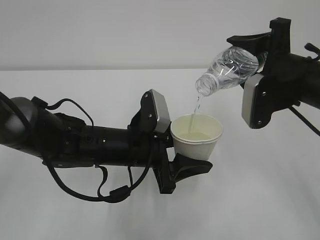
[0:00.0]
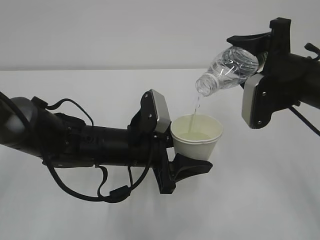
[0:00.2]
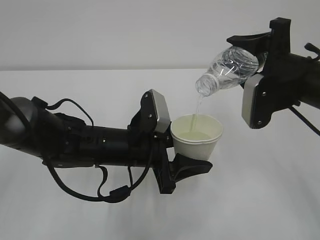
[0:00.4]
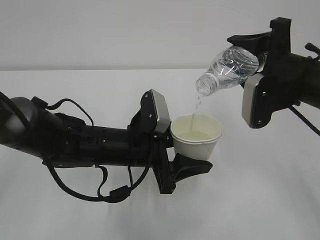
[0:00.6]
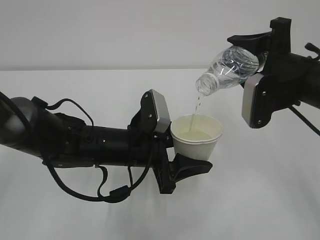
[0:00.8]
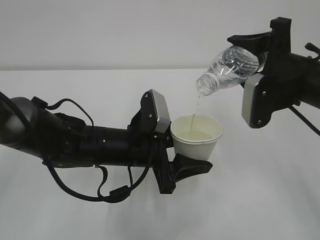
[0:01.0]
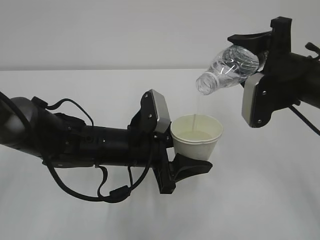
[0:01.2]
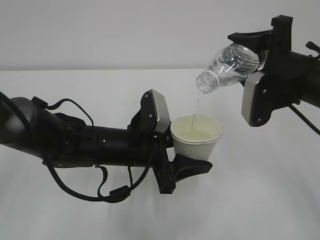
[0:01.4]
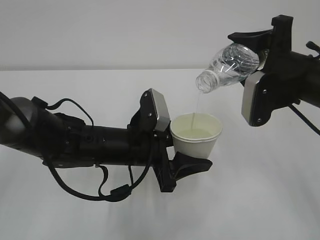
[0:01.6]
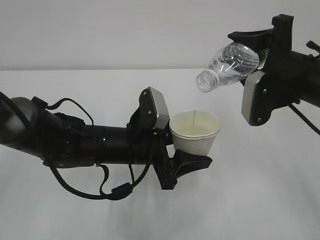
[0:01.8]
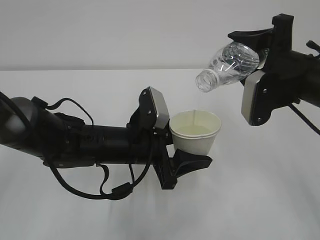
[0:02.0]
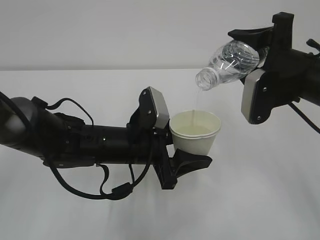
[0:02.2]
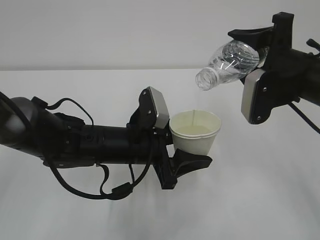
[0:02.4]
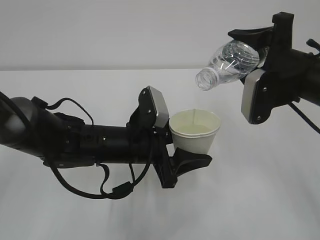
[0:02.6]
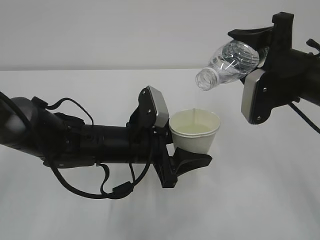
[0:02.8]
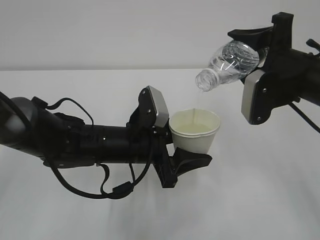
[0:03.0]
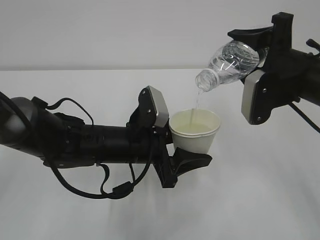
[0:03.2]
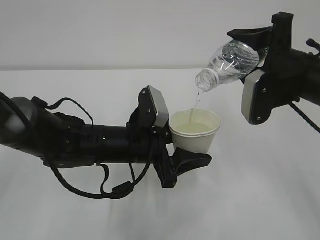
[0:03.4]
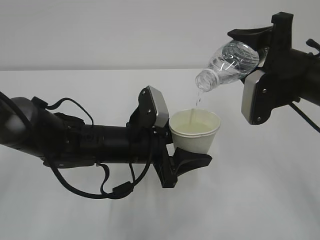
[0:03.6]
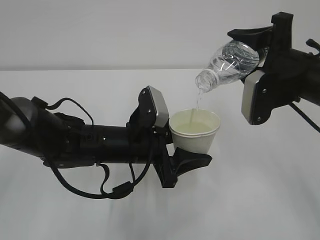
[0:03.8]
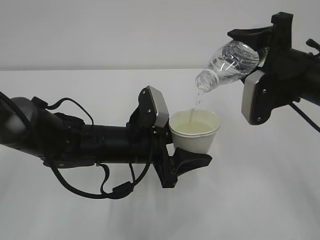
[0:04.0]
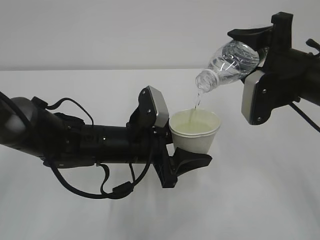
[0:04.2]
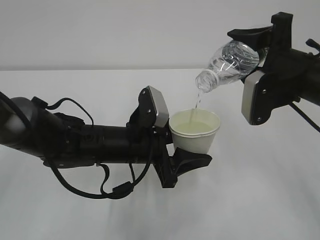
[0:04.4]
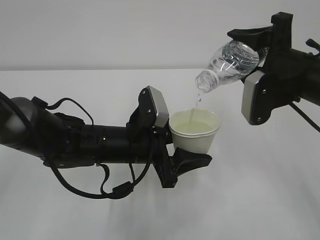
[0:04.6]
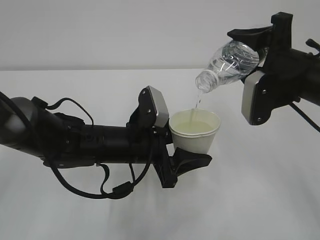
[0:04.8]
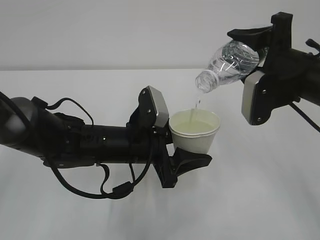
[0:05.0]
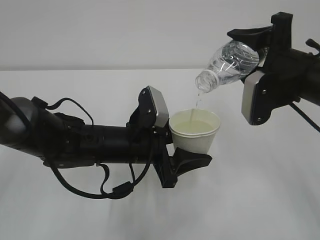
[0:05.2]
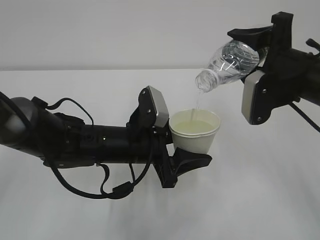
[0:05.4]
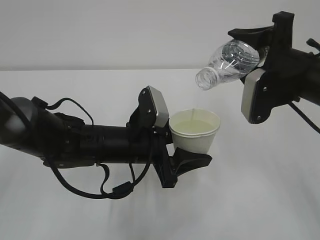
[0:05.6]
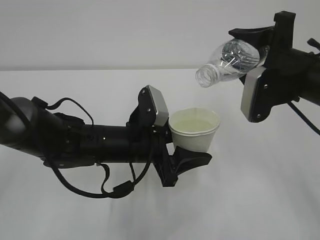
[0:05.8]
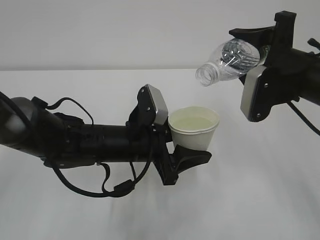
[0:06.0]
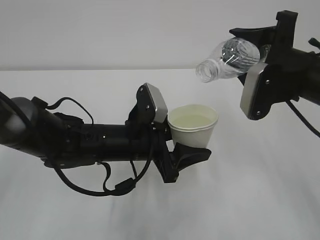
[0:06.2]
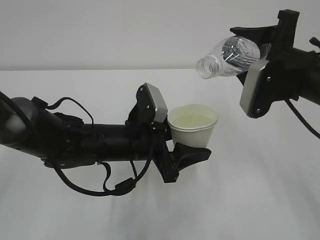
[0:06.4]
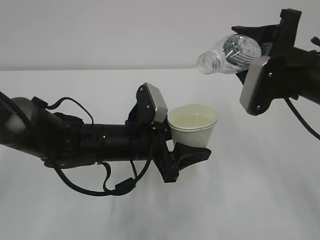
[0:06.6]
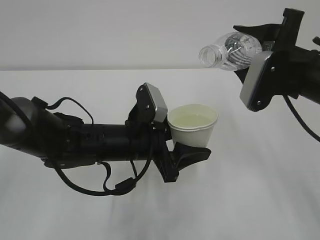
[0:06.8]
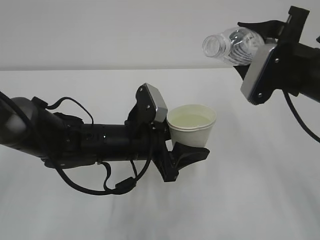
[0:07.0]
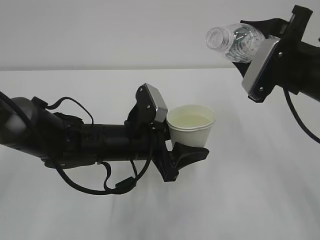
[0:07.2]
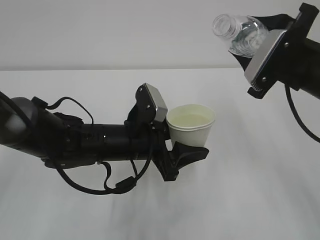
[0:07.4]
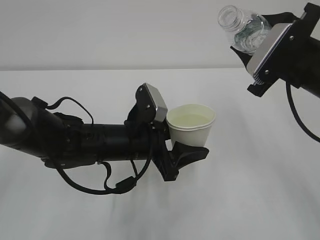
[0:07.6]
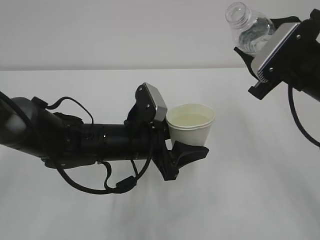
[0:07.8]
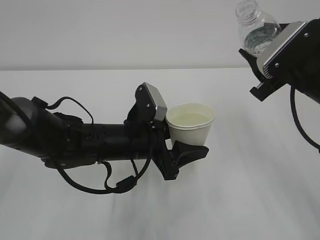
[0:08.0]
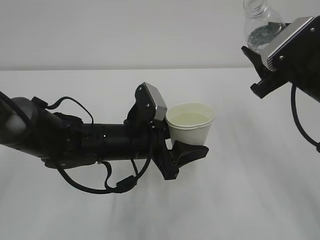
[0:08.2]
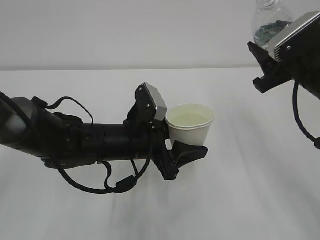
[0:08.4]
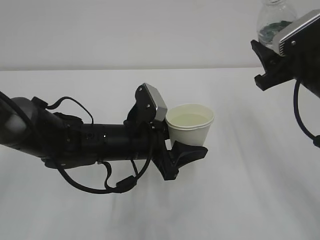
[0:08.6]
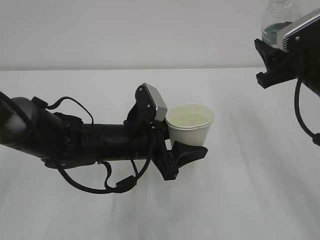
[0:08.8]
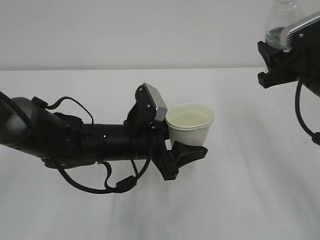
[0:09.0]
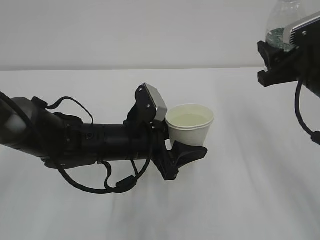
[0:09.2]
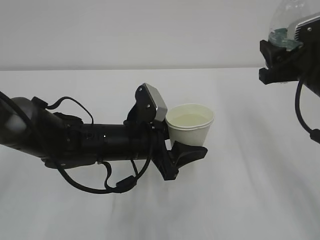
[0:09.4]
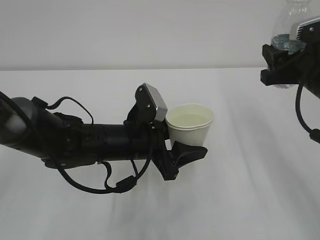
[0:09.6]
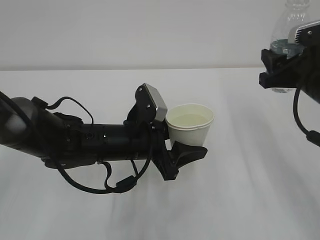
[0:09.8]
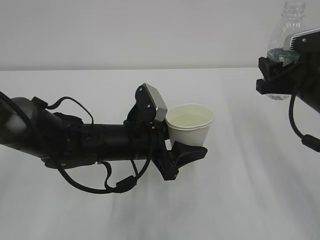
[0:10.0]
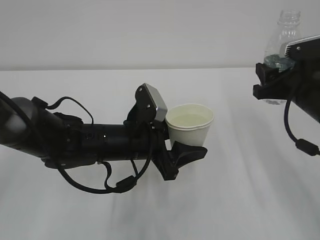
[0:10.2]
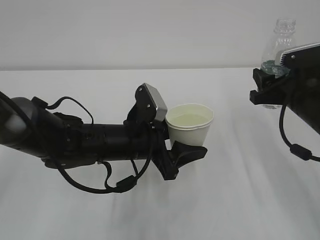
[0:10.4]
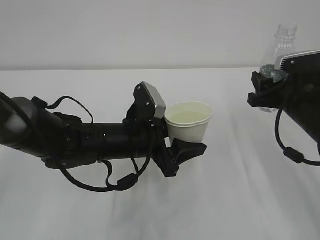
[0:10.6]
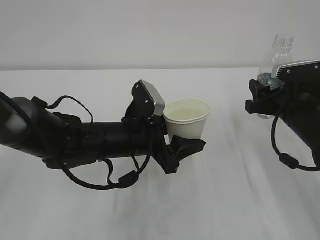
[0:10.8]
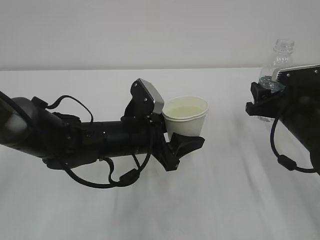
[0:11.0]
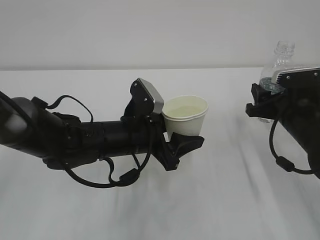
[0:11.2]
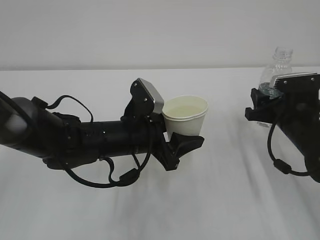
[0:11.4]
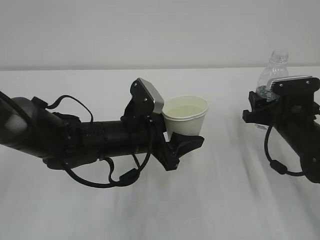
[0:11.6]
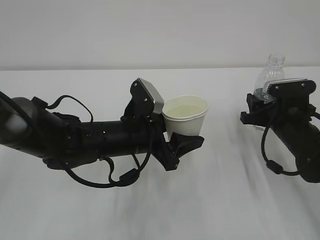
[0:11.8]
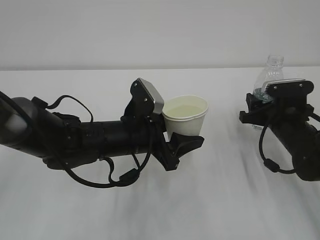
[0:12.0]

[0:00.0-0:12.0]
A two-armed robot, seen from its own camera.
0:00.0 to 0:04.4: The two grippers keep their place.
0:04.4 to 0:06.0: The grippers stay close to where they were, moving slightly.
0:09.0 to 0:10.4: The right gripper moves downward, roughly 5 cm.
0:10.4 to 0:12.0: The right gripper is displaced downward by approximately 10 cm.

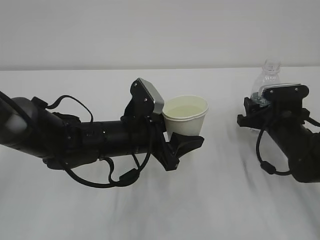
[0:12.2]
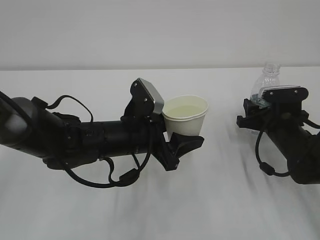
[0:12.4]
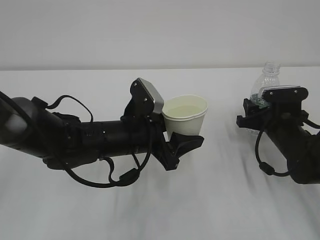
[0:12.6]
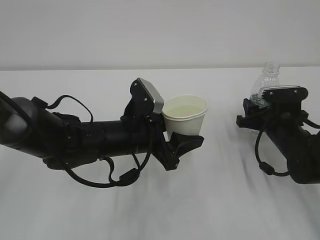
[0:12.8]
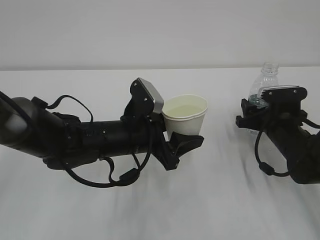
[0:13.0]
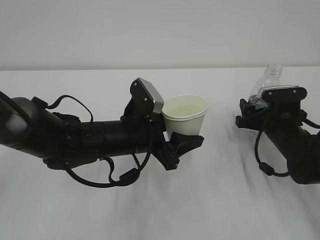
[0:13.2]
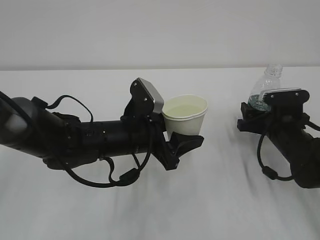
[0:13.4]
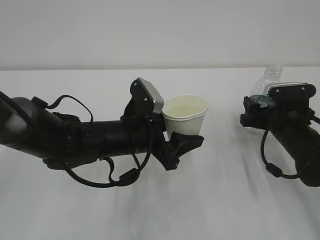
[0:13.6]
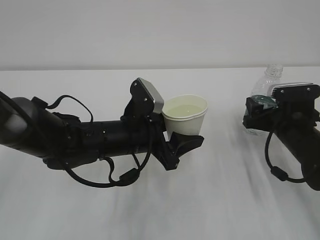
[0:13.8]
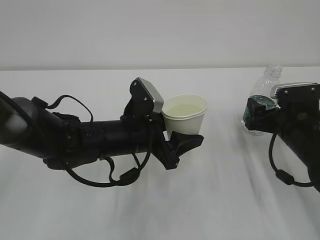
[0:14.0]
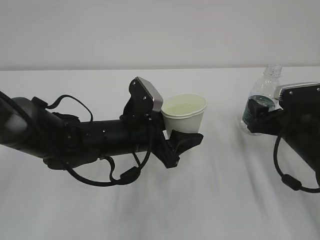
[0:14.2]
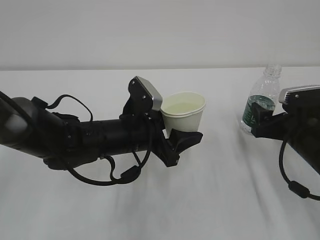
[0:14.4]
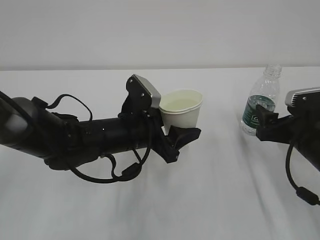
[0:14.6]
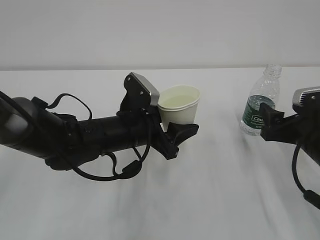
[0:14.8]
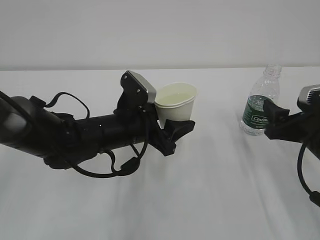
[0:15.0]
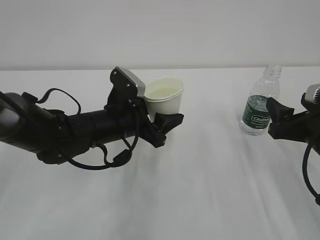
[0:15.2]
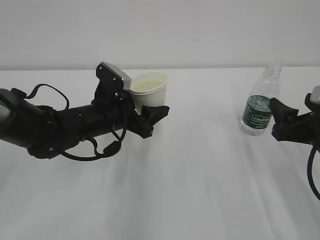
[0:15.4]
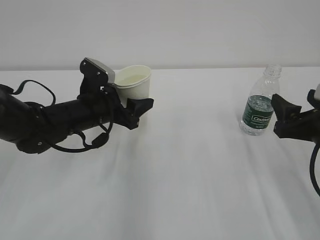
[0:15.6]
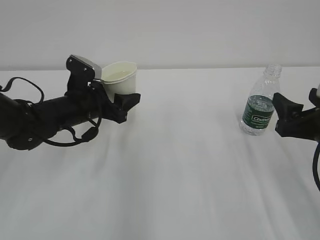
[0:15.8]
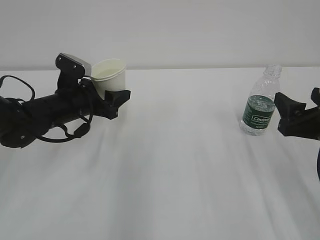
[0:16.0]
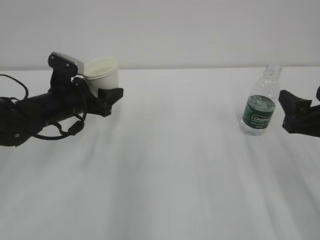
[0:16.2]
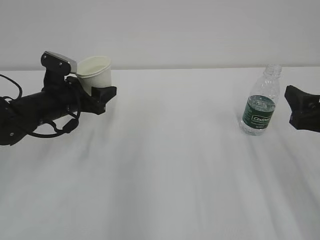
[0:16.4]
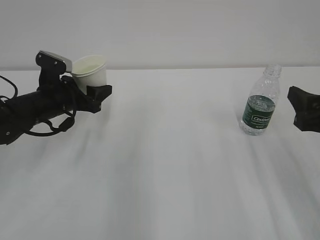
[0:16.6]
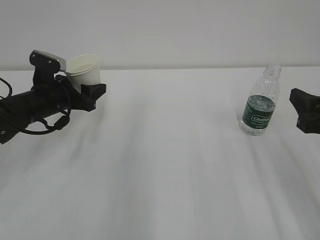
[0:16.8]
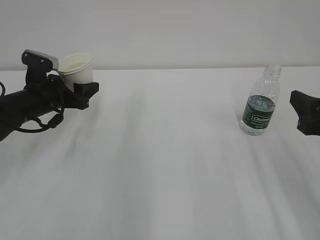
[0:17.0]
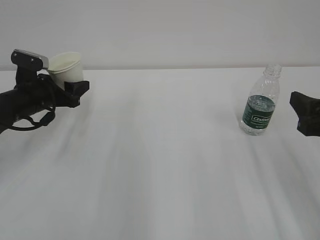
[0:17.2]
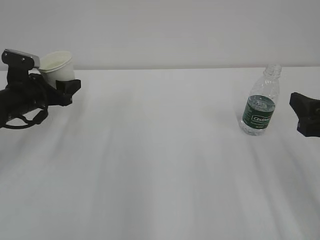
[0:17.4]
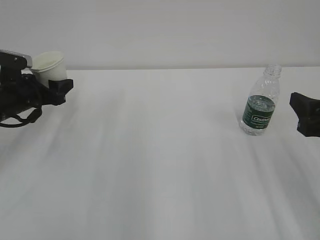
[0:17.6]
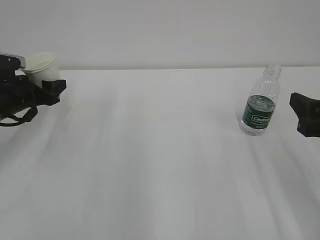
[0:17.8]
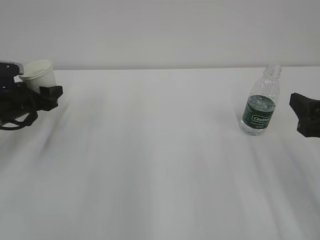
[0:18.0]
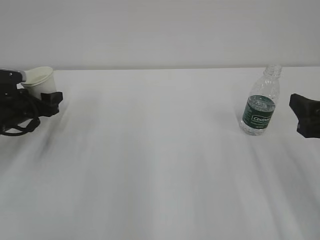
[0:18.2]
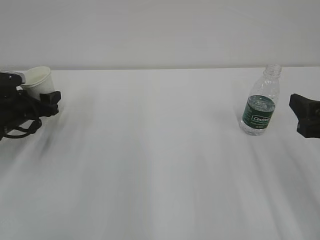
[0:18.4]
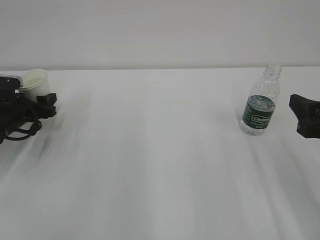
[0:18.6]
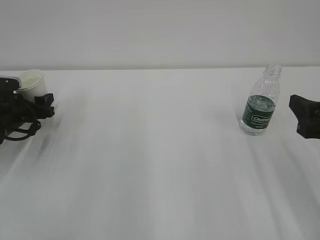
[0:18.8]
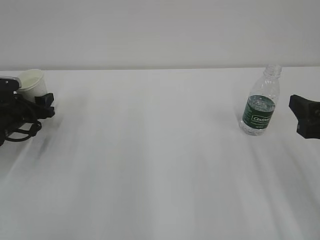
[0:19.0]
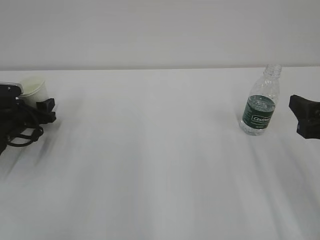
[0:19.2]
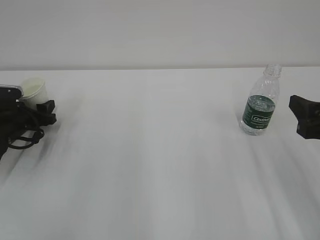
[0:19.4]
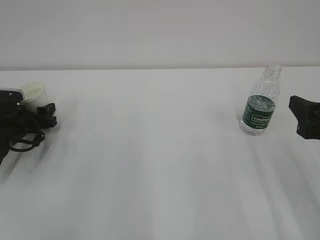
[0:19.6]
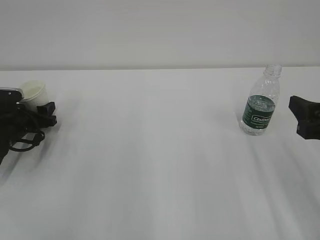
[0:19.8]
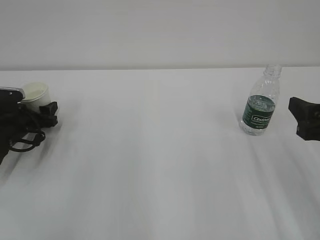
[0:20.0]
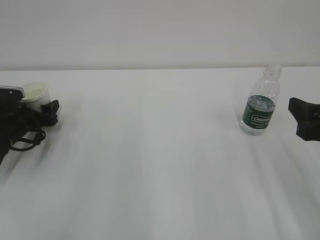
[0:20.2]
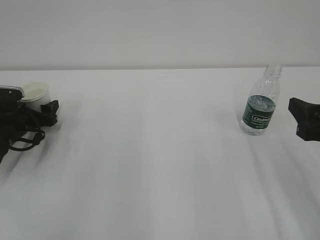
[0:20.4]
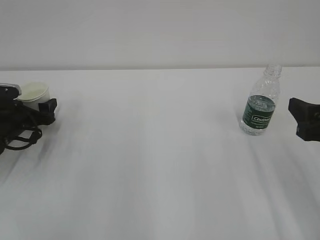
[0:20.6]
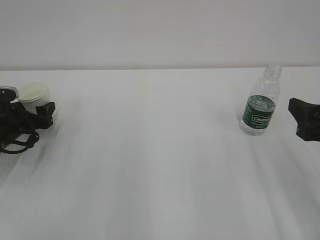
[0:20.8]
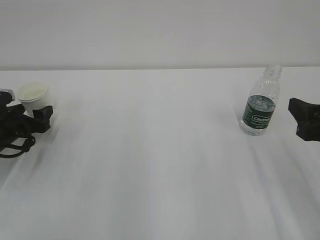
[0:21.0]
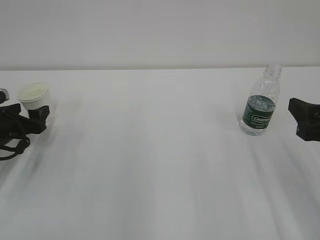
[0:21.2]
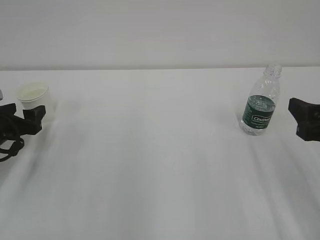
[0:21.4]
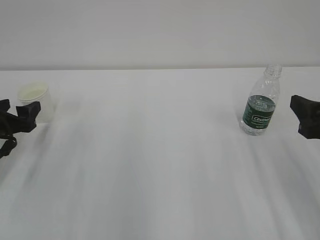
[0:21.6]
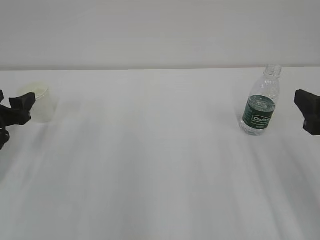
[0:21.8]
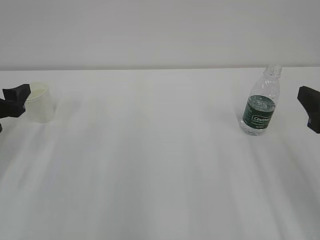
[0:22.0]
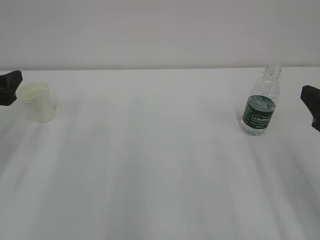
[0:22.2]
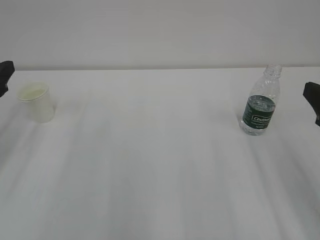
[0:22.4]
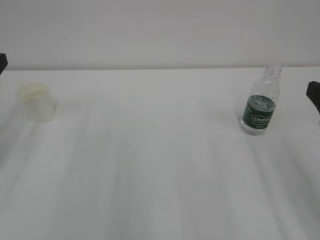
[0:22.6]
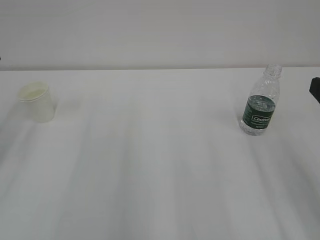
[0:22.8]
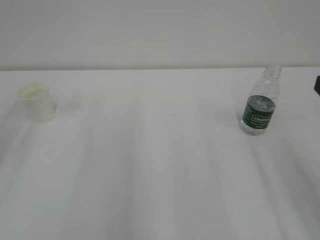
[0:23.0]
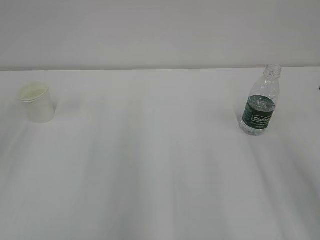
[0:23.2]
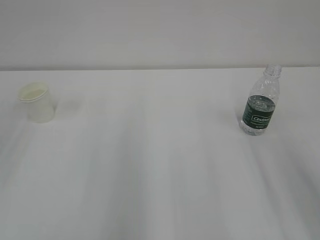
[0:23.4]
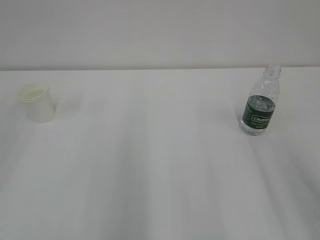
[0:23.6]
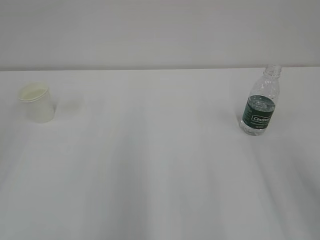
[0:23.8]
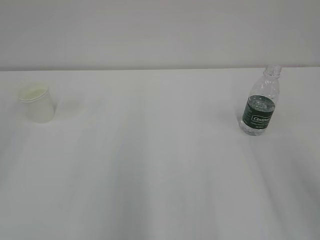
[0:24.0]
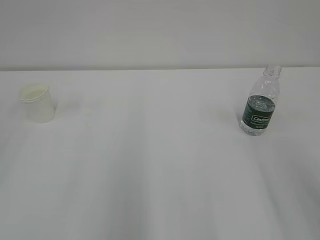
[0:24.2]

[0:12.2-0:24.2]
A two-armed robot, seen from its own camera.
0:12.2 to 0:13.8: The right gripper opens.
0:13.8 to 0:15.2: The right gripper travels backward and upward by roughly 10 cm.
0:15.2 to 0:16.6: The right gripper heads upward, covering approximately 5 cm, while the left gripper is displaced to the left and forward by roughly 15 cm.
0:16.6 to 0:18.2: The left gripper shifts about 10 cm to the left.
0:18.2 to 0:19.8: There are only small adjustments of the grippers.
0:19.8 to 0:21.2: The left gripper travels backward by some 5 cm, and opens up.
0:21.2 to 0:22.6: The left gripper is displaced upward and backward by roughly 15 cm.
